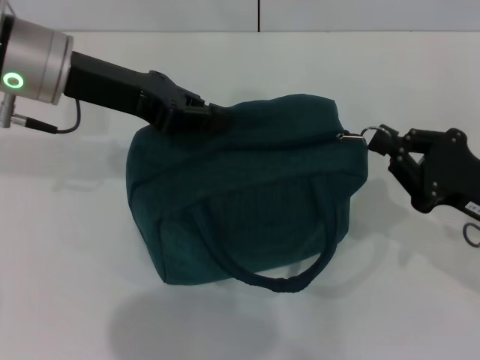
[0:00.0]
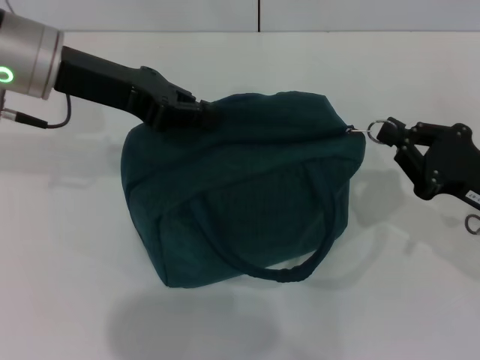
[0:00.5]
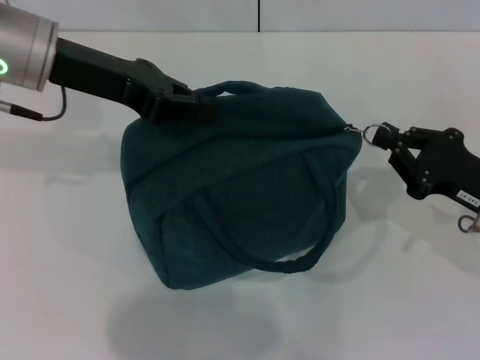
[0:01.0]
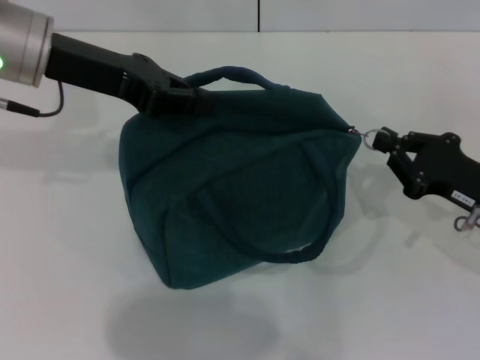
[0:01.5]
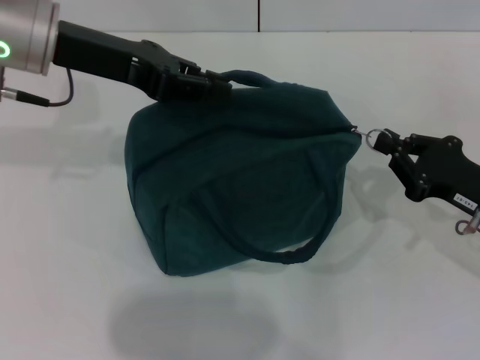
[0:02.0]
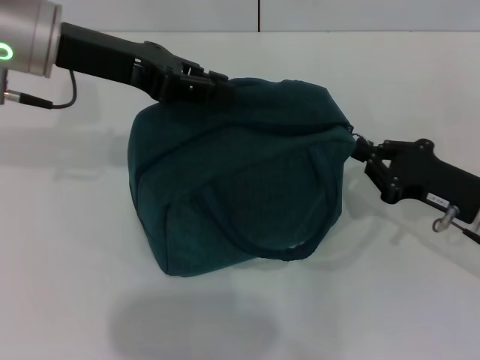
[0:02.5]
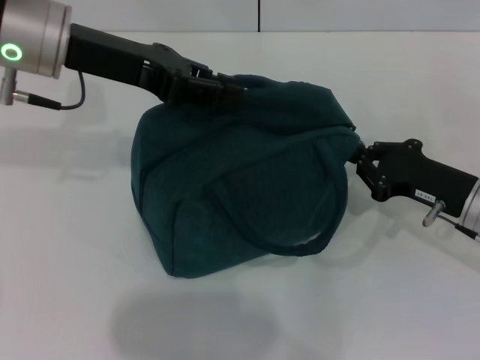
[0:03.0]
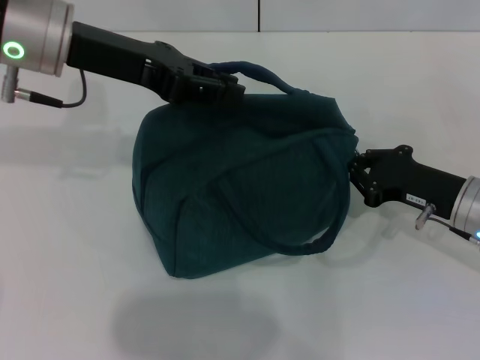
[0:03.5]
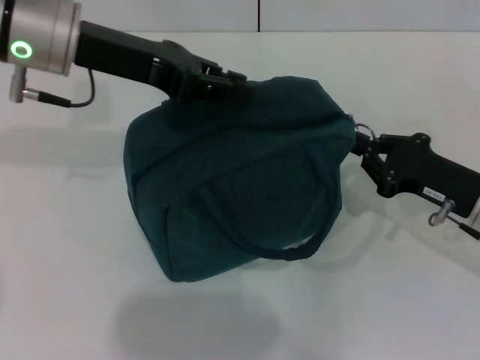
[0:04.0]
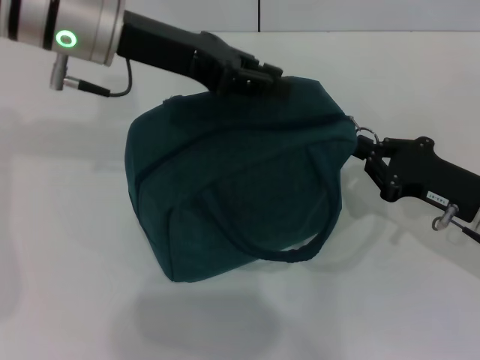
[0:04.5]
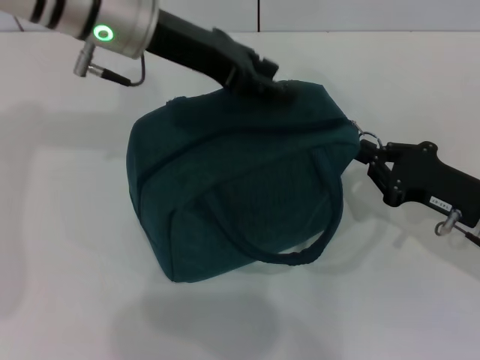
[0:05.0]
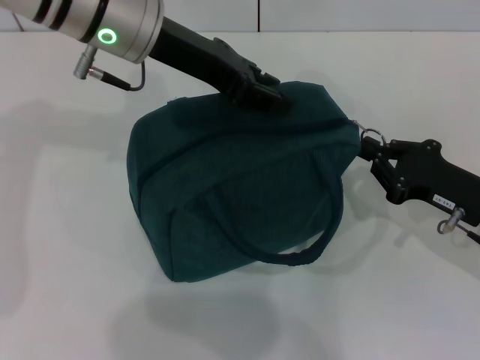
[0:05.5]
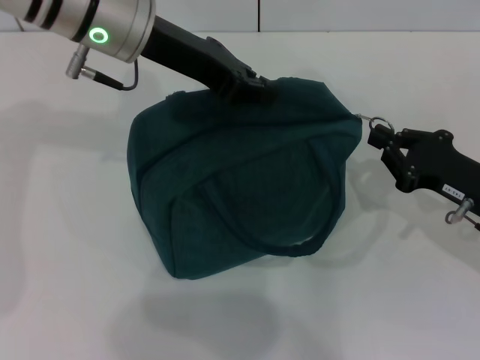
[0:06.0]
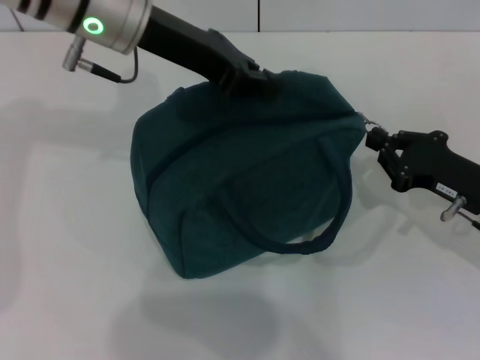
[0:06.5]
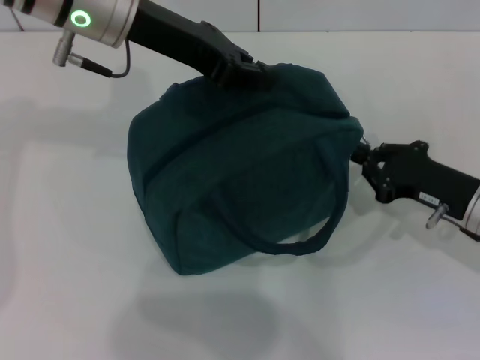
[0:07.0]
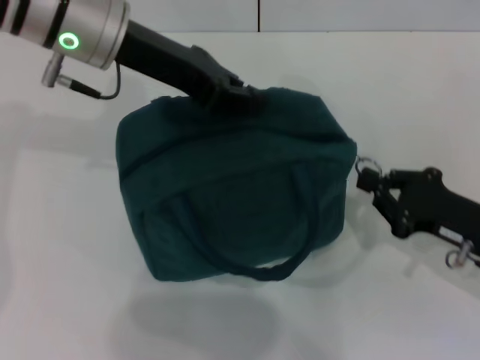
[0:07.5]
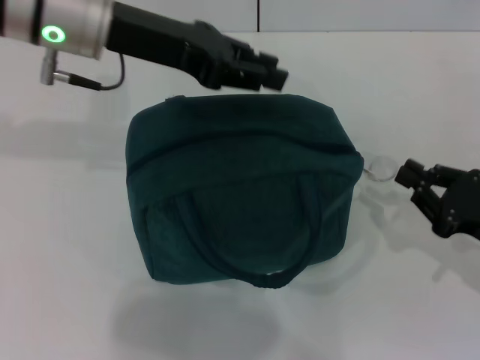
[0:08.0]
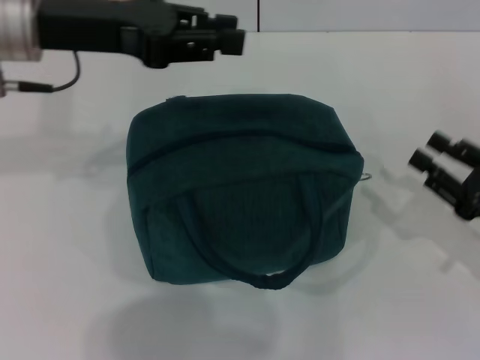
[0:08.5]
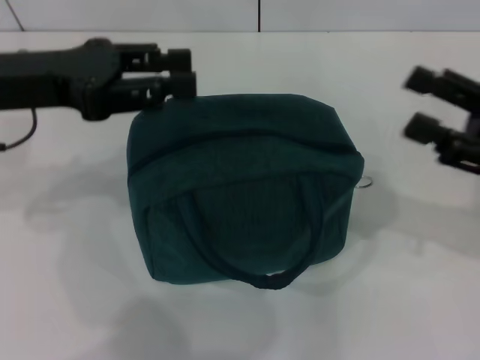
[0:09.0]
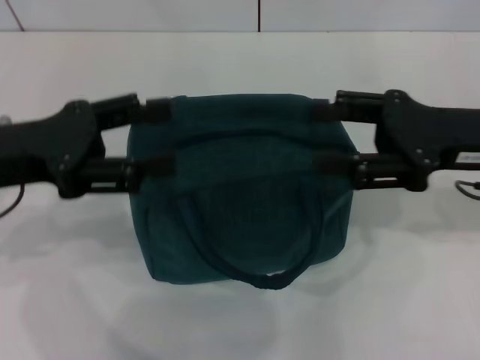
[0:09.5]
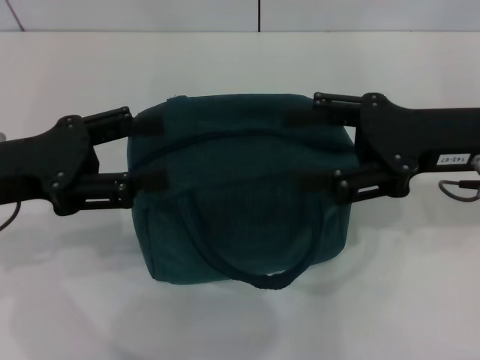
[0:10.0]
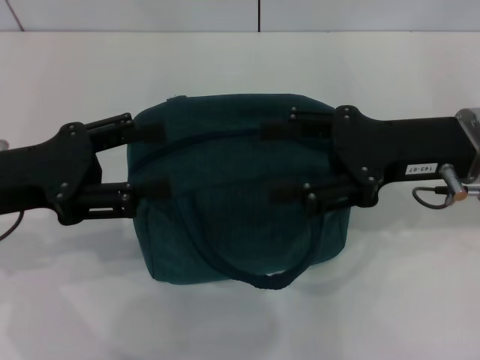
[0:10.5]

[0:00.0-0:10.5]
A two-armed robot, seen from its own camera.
Step, 0:00.0 to 0:08.0: Hold the lunch bag with your left hand.
0:00.0 to 0:02.0: There are only small adjustments of the grippers.
0:02.0 to 0:04.0: There are only small adjustments of the grippers.
0:04.0 to 0:06.5: The left gripper shifts approximately 5 cm to the right, and opens and closes again.
0:06.5 to 0:08.5: The right gripper moves backward, some 5 cm, and opens. Meanwhile the left gripper heads to the left, covering roughly 10 cm.
0:08.5 to 0:10.5: The left gripper shifts about 15 cm backward, downward and to the left, and opens its fingers, while the right gripper is displaced upward, to the left and forward by some 15 cm, and opens its fingers.

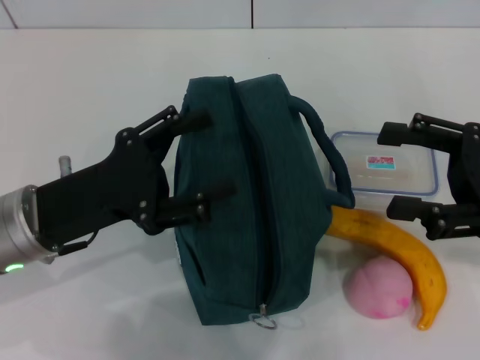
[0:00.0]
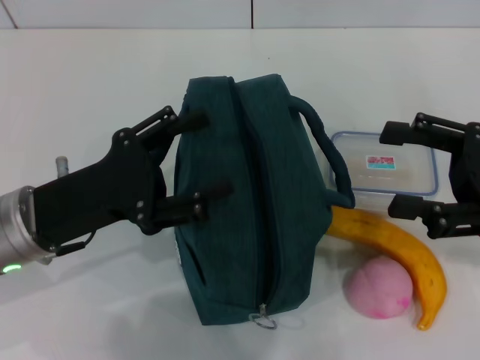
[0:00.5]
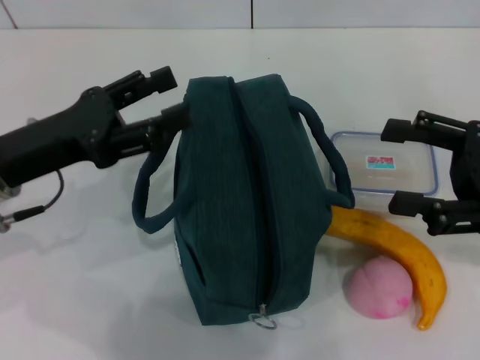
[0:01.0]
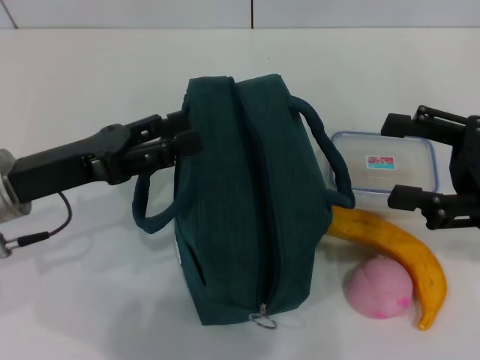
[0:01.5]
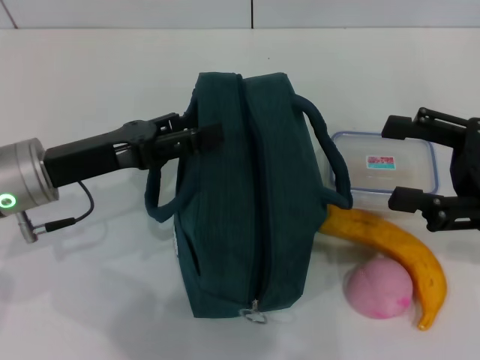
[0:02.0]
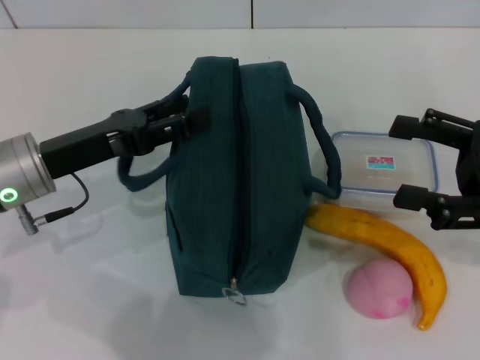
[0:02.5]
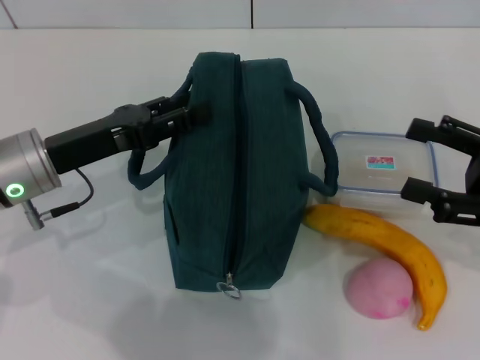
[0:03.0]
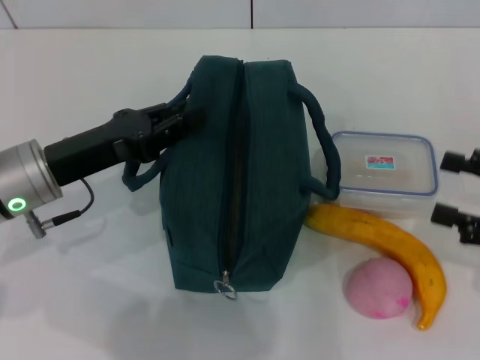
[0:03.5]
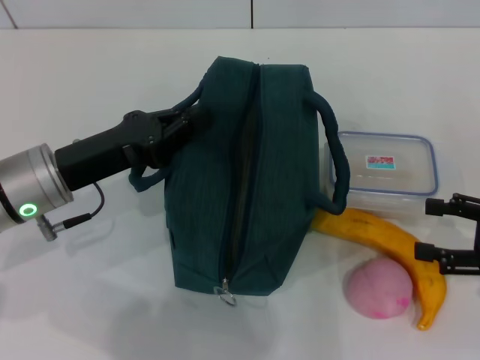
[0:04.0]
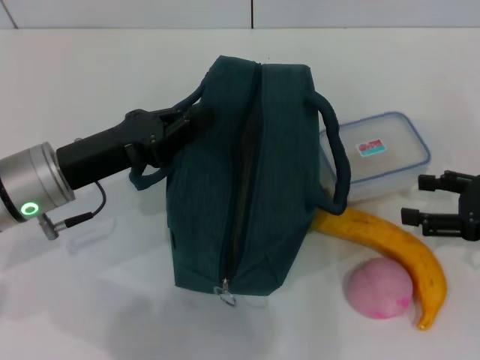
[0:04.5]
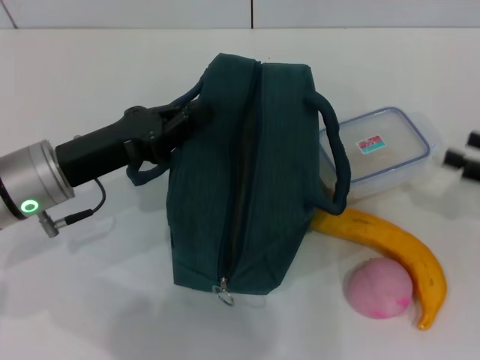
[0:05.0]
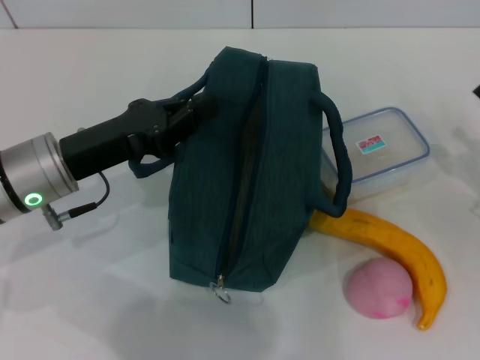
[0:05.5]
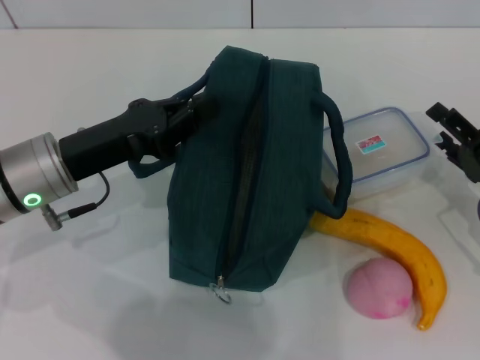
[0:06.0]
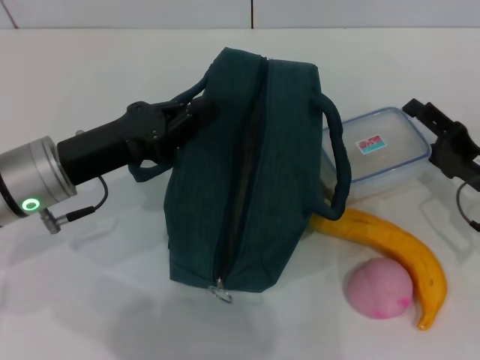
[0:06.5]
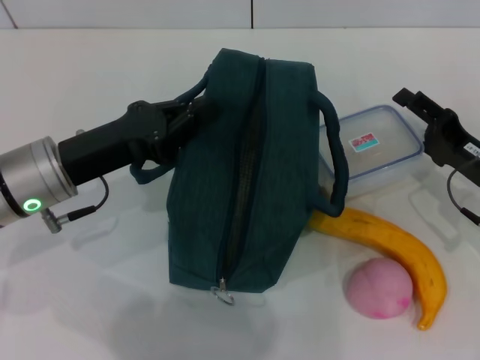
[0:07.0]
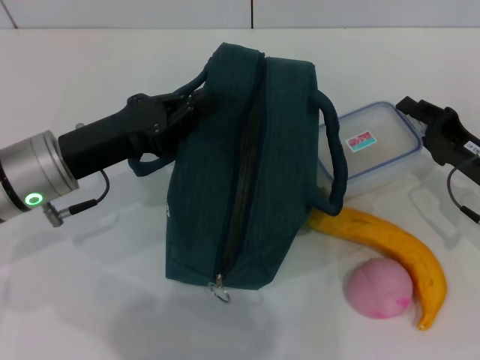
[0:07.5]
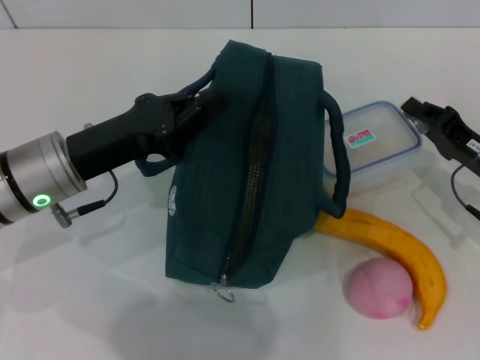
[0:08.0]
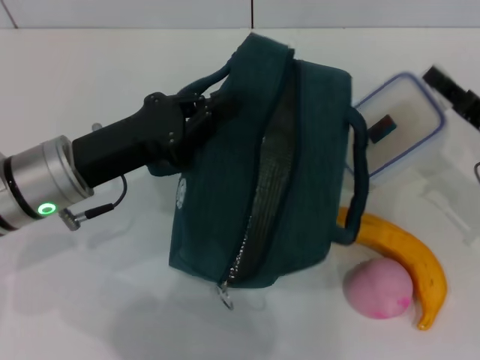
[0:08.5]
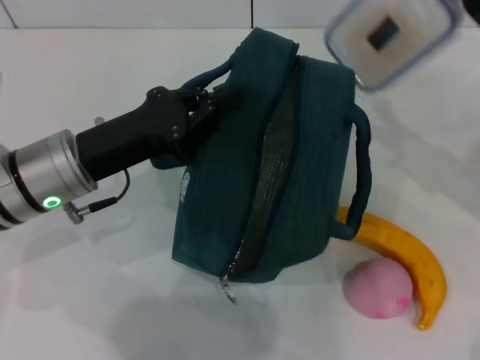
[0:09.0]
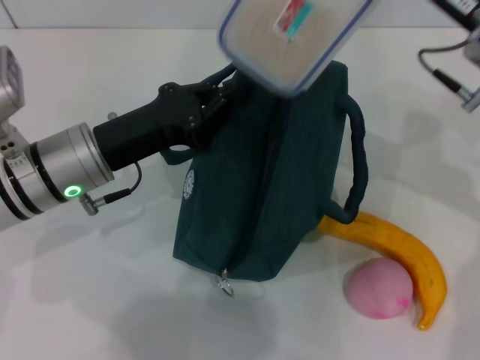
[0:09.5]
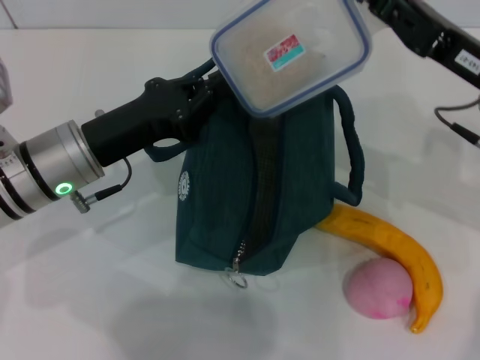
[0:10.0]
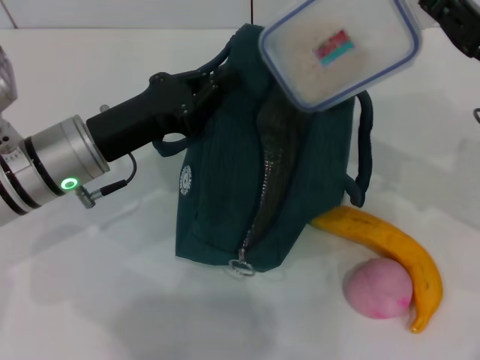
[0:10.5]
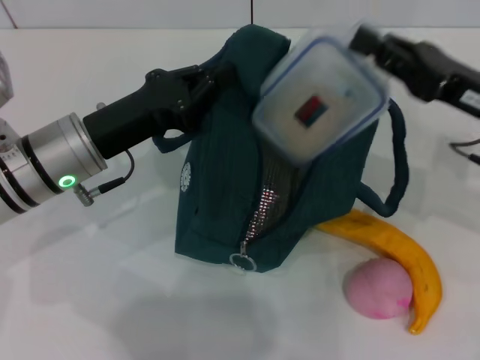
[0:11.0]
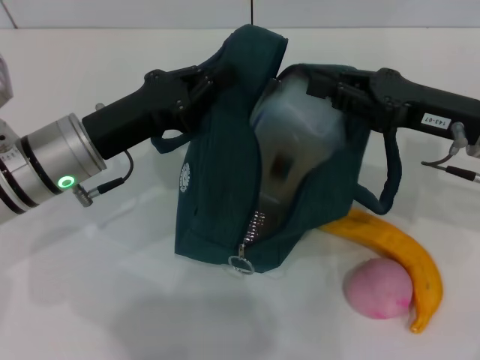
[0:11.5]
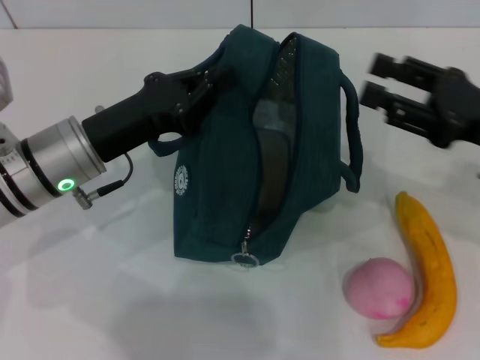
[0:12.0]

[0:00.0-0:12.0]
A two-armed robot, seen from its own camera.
Step, 0:00.0 to 0:02.5: Hold the lunch bag with your left hand.
Step, 0:03.0 to 0:08.0: Pick up the lunch box with your right hand.
Step, 0:08.5 to 0:11.5: Place the lunch box into the lunch bag with your right hand.
0:02.0 to 0:04.0: The right gripper is displaced downward and to the right by some 10 cm, while the left gripper closes.
0:04.0 to 0:06.0: The right gripper travels downward by approximately 5 cm.
0:06.0 to 0:08.0: The right gripper closes up.
0:08.0 to 0:10.0: The right gripper moves upward and to the left, some 10 cm.
0:10.0 to 0:12.0: The right gripper shifts by roughly 5 cm, and opens.

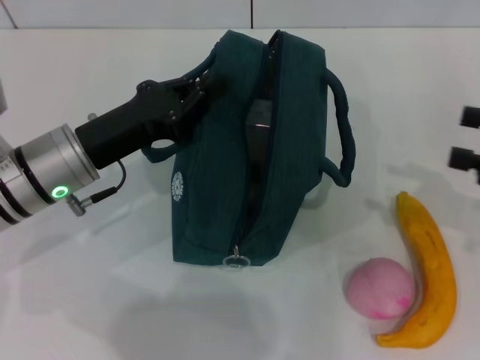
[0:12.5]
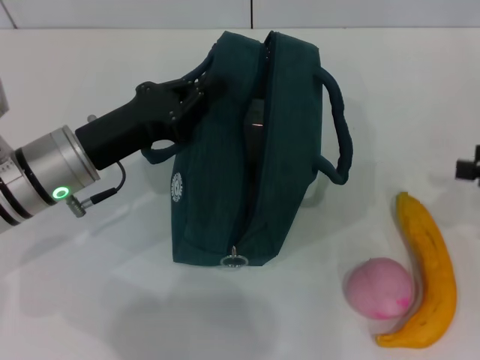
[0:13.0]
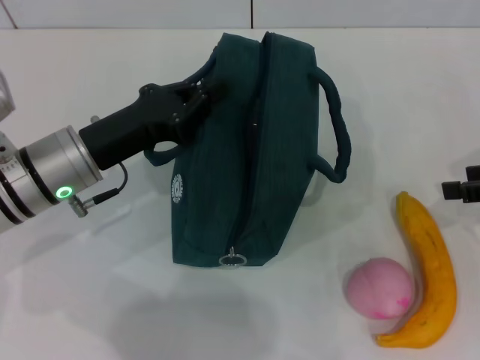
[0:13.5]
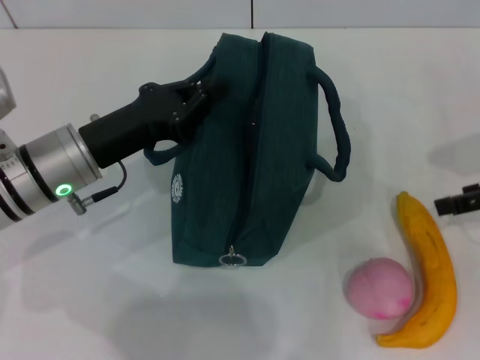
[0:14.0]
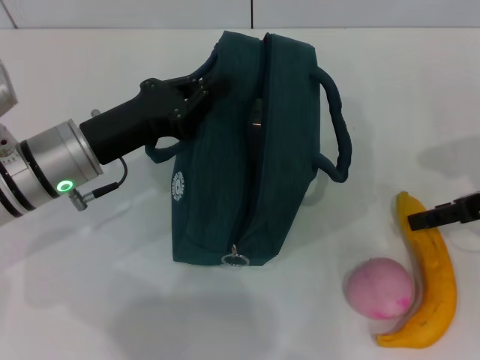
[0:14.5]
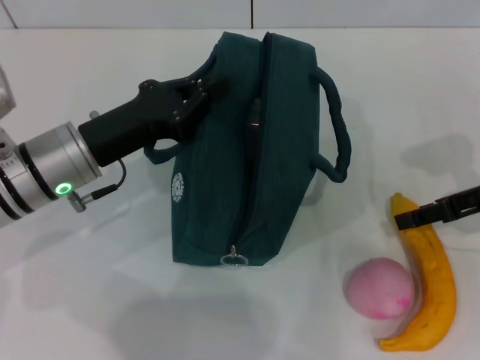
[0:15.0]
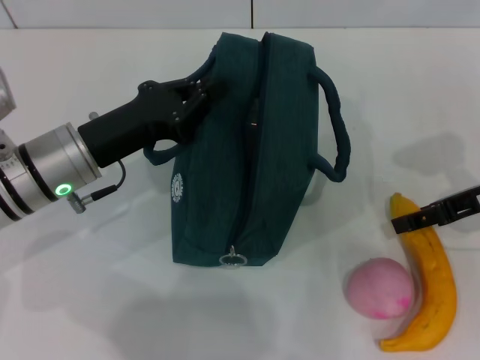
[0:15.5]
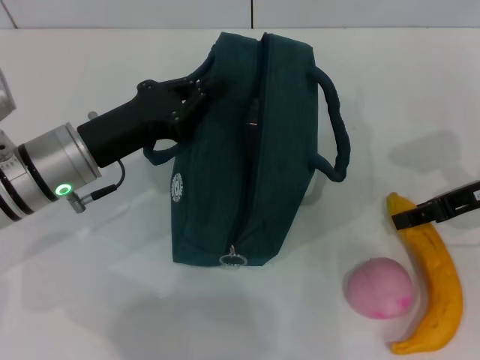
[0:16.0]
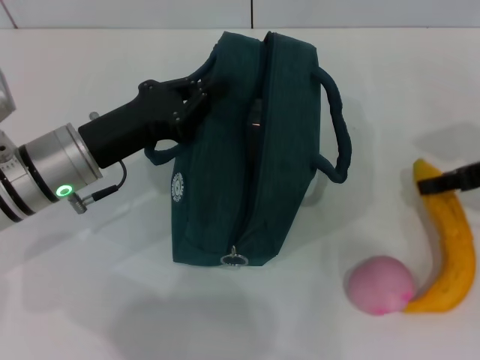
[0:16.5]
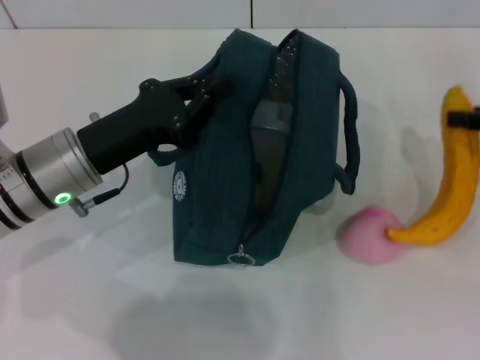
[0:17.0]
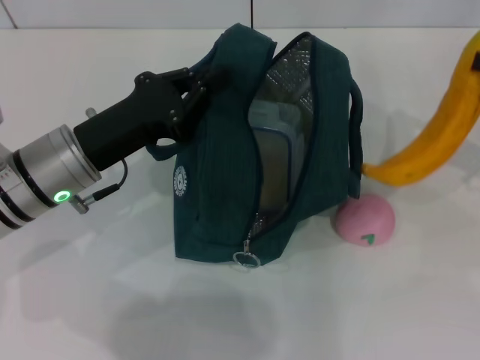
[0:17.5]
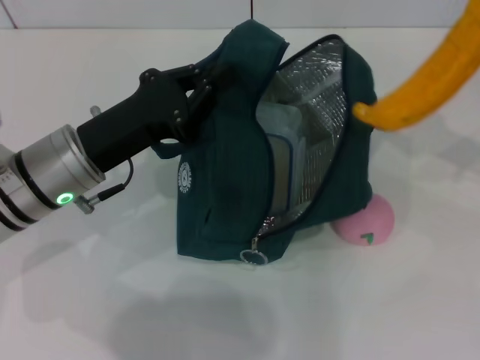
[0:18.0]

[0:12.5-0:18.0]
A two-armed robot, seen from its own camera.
Step, 0:12.5 to 0:16.0: Take the banana with your right hand.
0:12.5 to 0:14.5: The right gripper shifts some 5 cm to the left and forward.
0:14.5 to 0:16.0: The grippers stay close to where they were, moving slightly.
0:16.0 to 0:18.0: The right gripper moves to the right and upward, roughly 10 cm.
